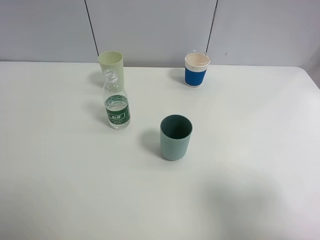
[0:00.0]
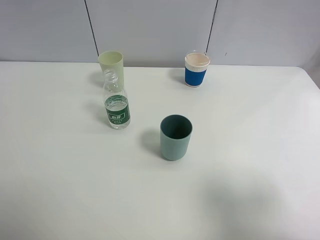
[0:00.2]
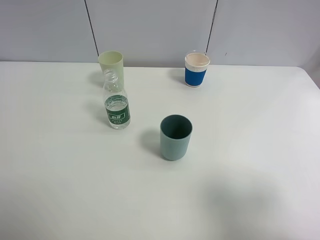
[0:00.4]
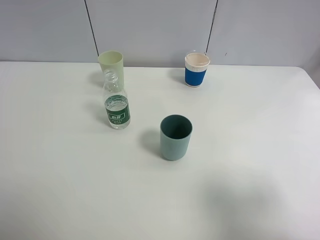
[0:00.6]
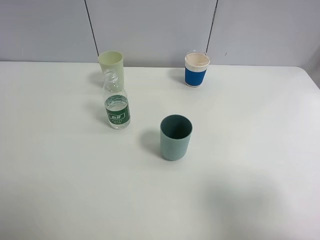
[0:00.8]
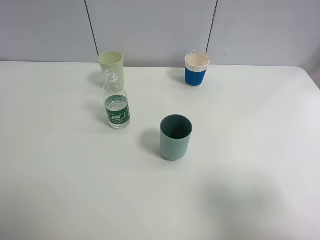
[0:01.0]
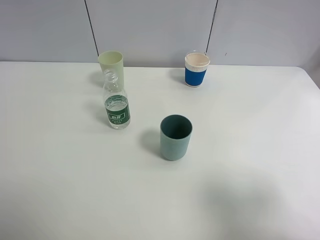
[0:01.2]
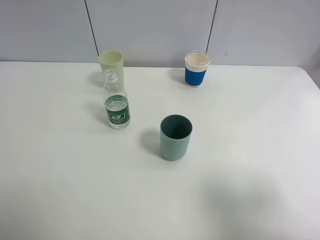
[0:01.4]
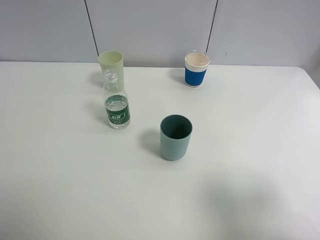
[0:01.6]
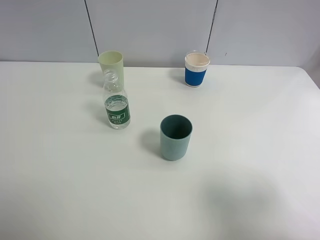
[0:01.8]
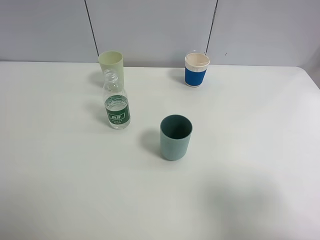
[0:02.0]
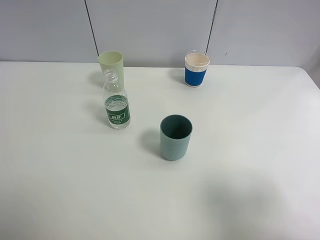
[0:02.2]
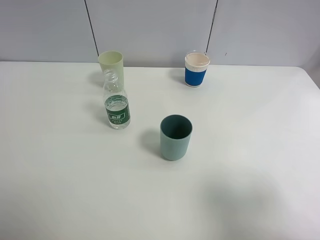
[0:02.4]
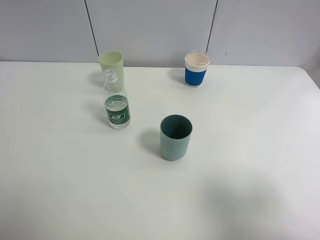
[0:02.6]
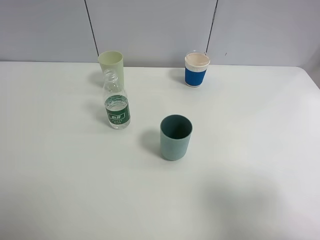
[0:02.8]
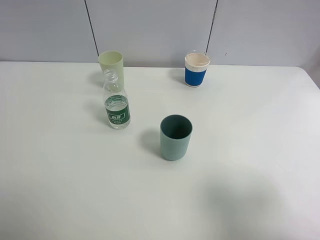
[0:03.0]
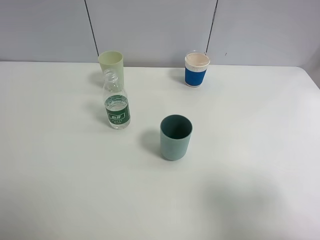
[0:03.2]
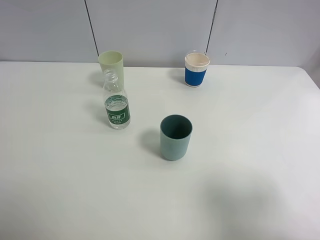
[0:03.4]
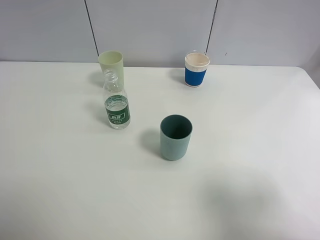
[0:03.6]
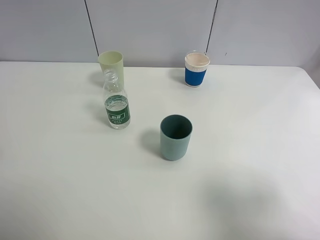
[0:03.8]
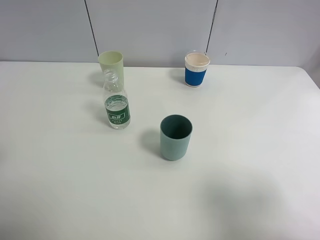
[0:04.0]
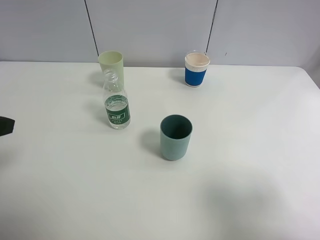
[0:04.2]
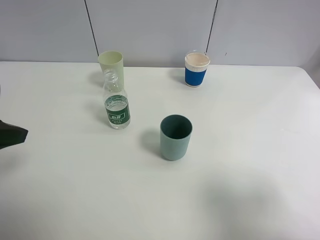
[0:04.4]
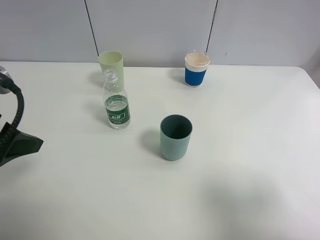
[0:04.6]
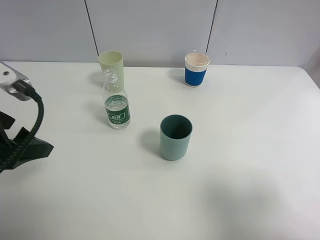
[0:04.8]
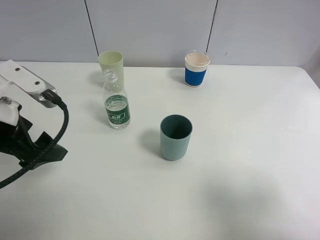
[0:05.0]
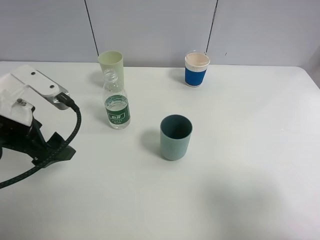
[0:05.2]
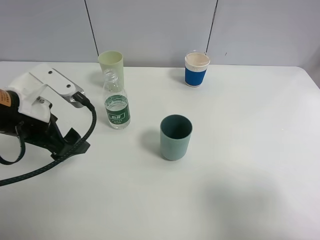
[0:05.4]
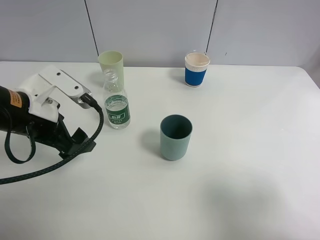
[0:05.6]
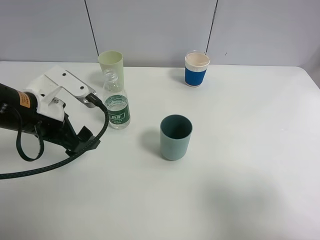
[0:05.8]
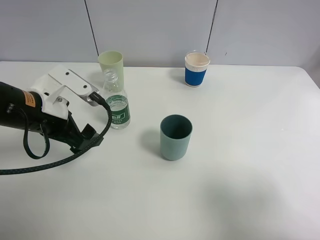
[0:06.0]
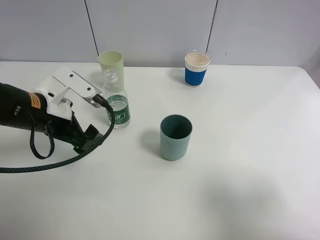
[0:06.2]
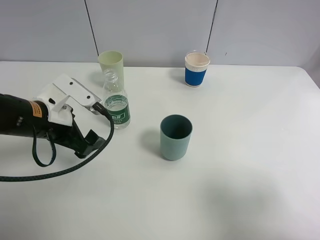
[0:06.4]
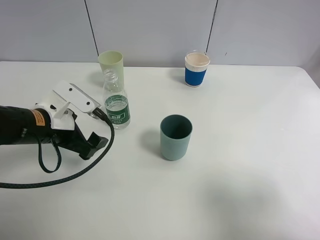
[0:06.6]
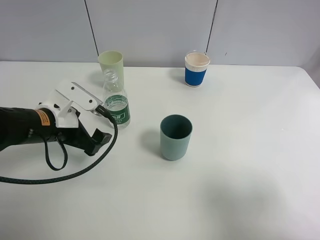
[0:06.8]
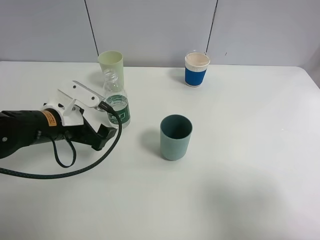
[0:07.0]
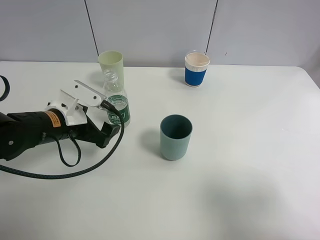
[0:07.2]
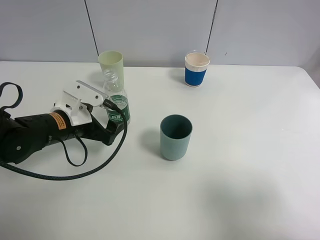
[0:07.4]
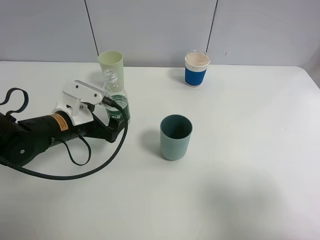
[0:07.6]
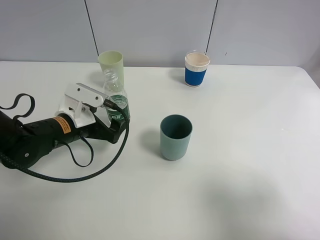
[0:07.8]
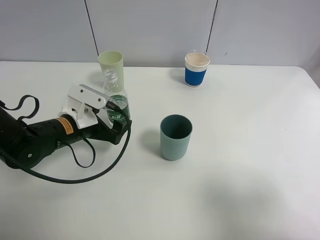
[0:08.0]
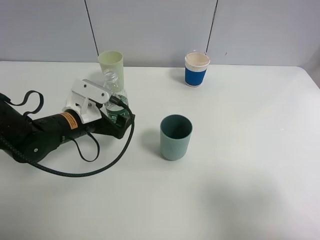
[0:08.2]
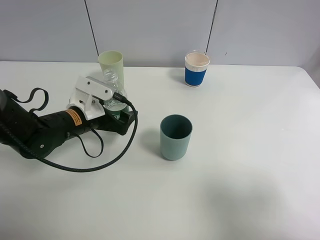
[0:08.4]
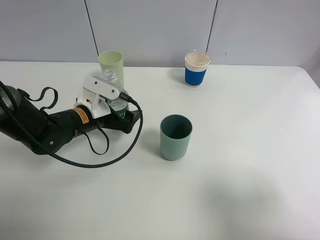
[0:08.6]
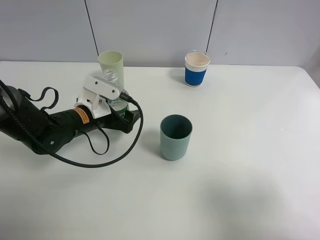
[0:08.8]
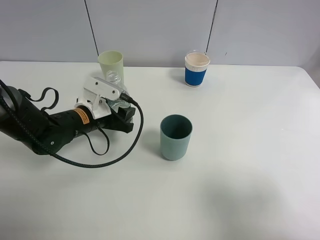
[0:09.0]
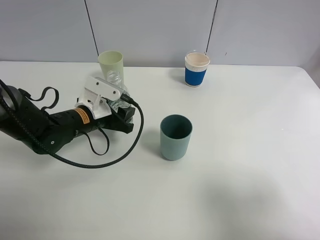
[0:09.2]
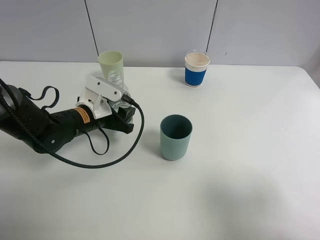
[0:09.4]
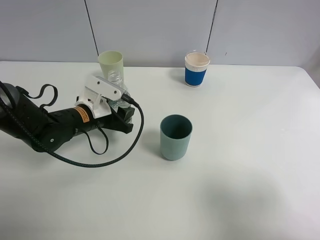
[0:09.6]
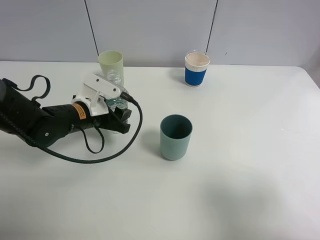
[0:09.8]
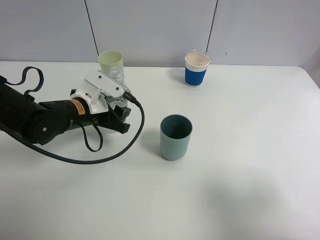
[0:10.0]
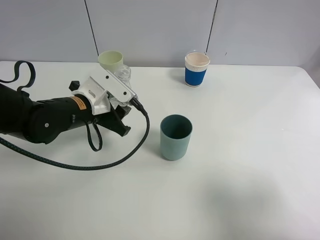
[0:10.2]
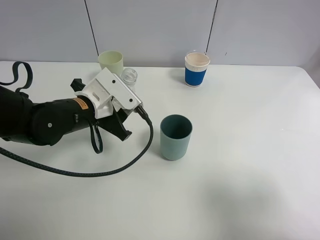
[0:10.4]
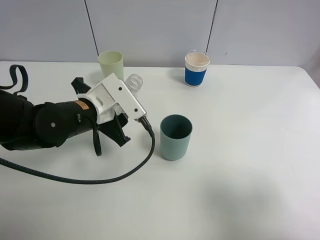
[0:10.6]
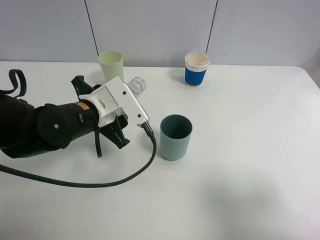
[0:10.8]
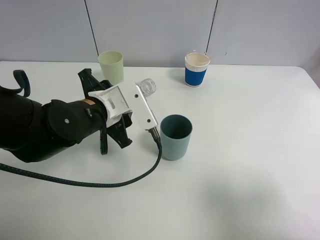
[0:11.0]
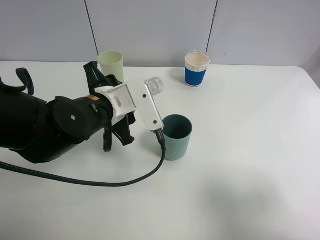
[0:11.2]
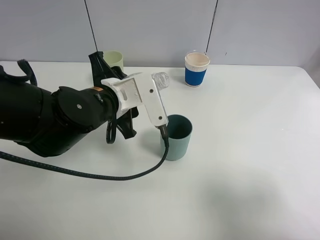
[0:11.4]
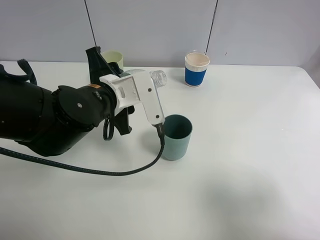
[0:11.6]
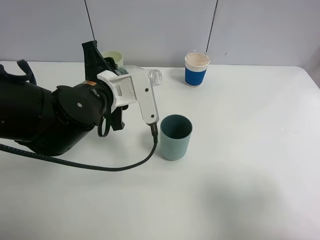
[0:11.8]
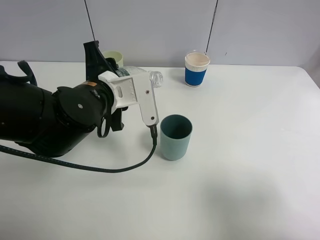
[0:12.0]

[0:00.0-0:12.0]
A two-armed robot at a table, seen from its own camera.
Task of the whole recording: use a clamp to hold the bottle of the drink, pour the beverage into a random cup, then clamp the cup containing the drink and pour the drink into another random cup.
Step, 0:00.0 to 0:10.0: Pick up the water bottle with left gripper.
0:00.0 to 0:03.0: Neither gripper changes place.
0:03.0 to 0:04.4: The left gripper is displaced forward by some 15 cm.
0:04.4 to 0:06.0: The left gripper goes about 15 cm downward, forward and to the right.
0:06.0 to 0:07.6: The left gripper shifts about 5 cm downward.
0:07.6 to 0:09.0: The left gripper closes its fingers.
0:09.0 to 0:10.4: The left gripper moves upward, some 5 cm.
0:10.4 to 0:12.0: The left gripper ends up about 5 cm from where it was.

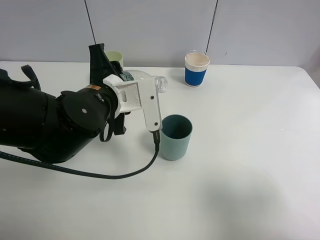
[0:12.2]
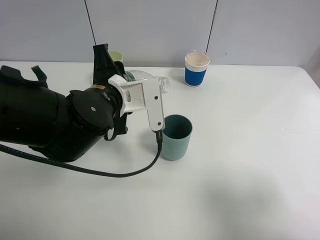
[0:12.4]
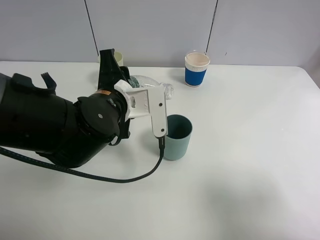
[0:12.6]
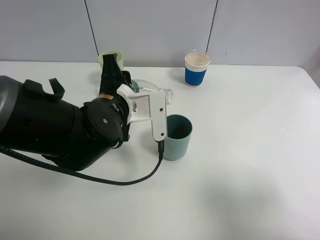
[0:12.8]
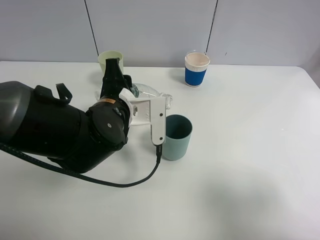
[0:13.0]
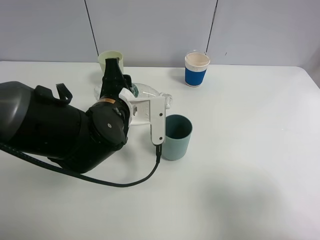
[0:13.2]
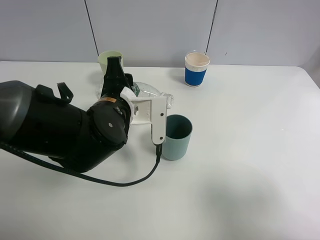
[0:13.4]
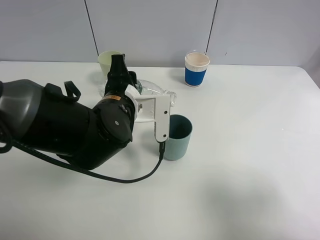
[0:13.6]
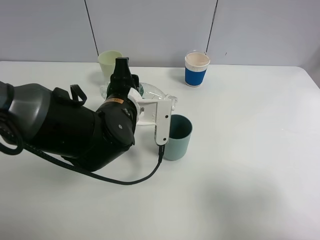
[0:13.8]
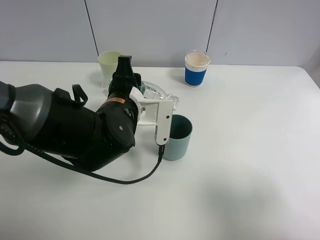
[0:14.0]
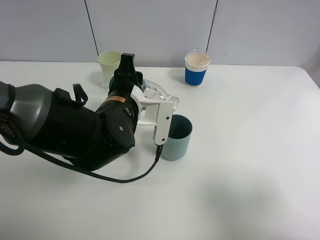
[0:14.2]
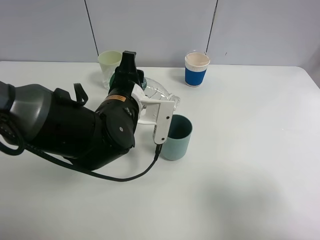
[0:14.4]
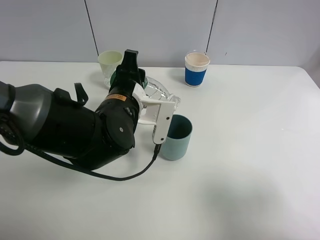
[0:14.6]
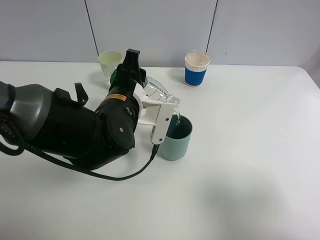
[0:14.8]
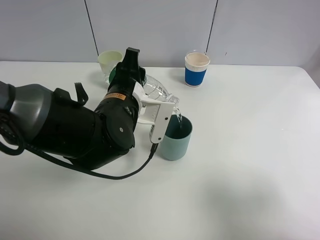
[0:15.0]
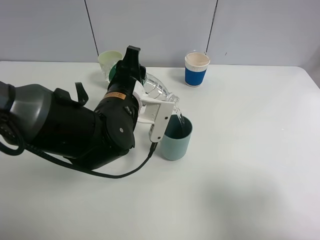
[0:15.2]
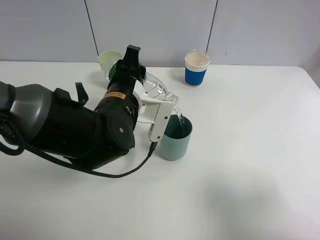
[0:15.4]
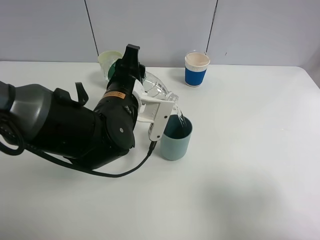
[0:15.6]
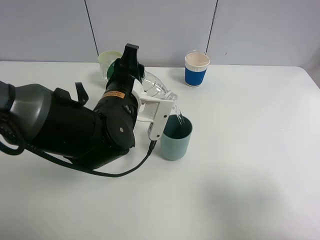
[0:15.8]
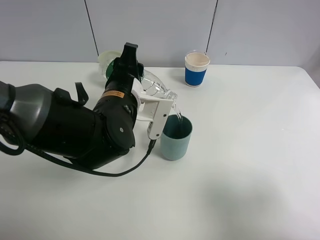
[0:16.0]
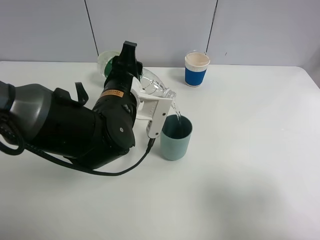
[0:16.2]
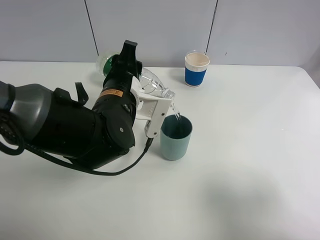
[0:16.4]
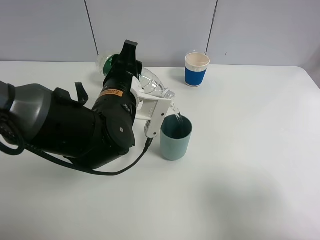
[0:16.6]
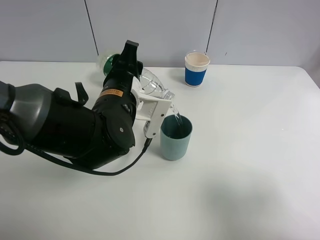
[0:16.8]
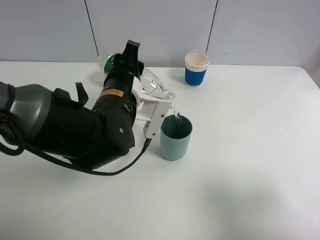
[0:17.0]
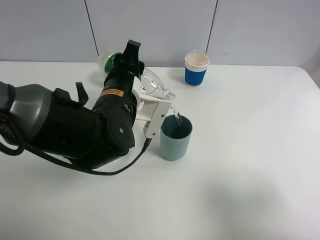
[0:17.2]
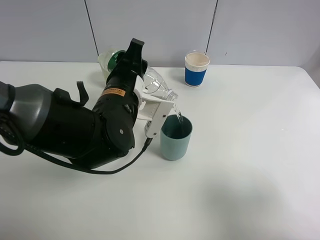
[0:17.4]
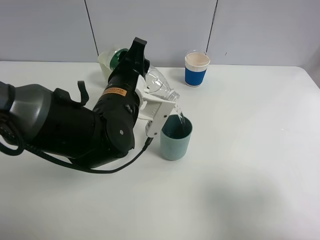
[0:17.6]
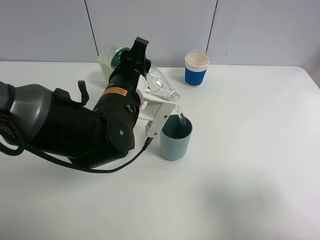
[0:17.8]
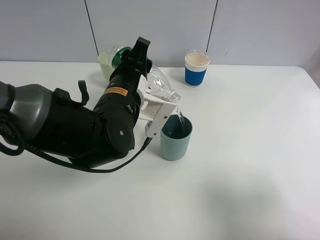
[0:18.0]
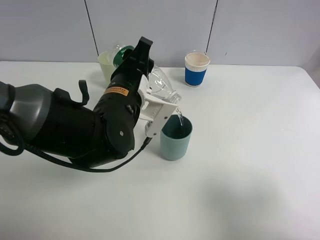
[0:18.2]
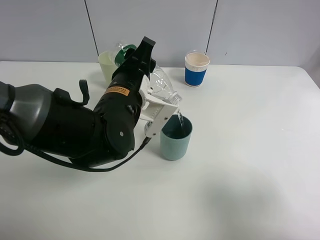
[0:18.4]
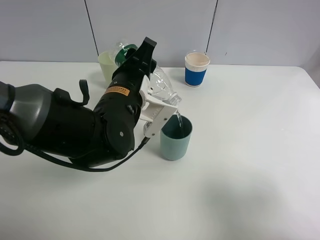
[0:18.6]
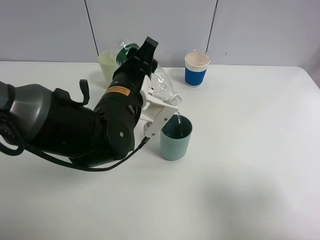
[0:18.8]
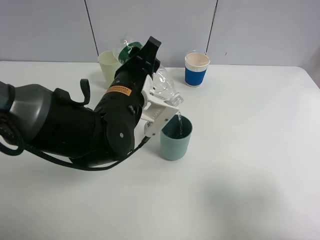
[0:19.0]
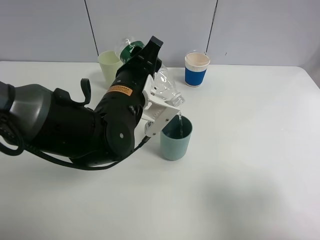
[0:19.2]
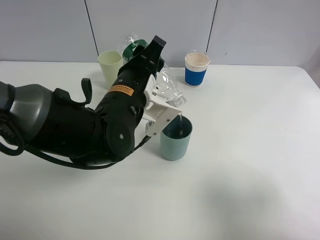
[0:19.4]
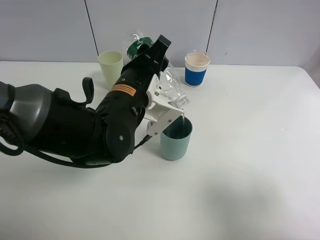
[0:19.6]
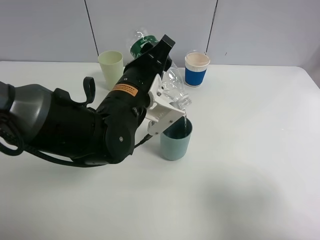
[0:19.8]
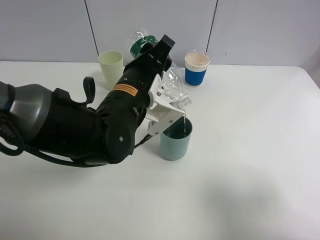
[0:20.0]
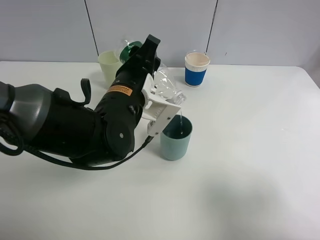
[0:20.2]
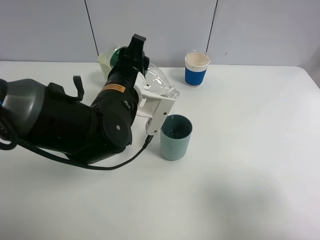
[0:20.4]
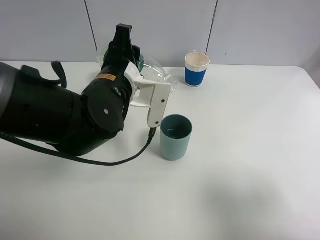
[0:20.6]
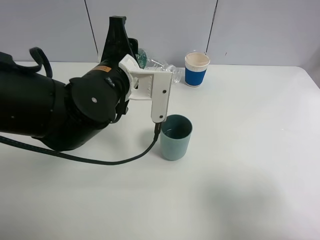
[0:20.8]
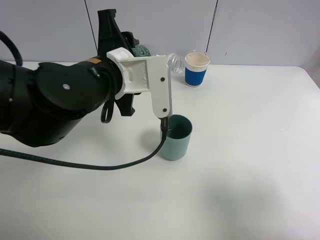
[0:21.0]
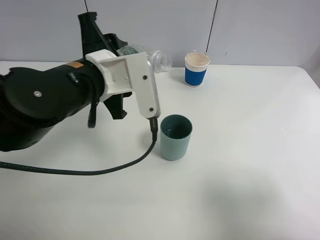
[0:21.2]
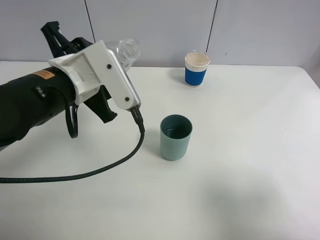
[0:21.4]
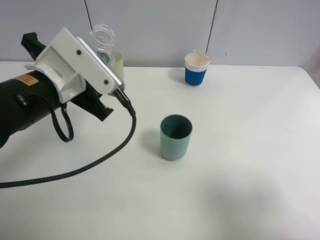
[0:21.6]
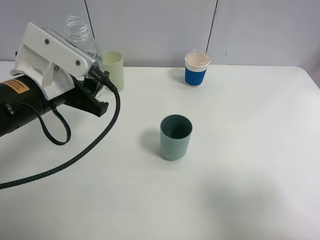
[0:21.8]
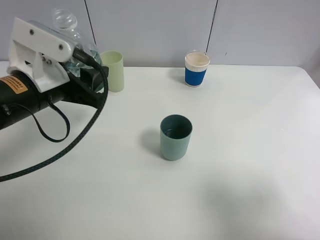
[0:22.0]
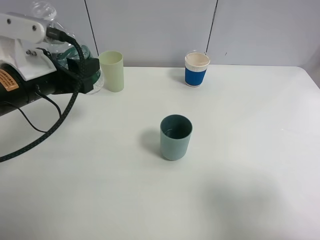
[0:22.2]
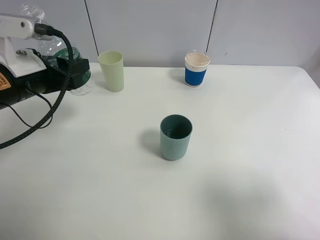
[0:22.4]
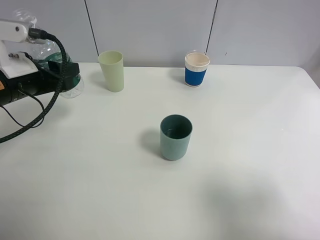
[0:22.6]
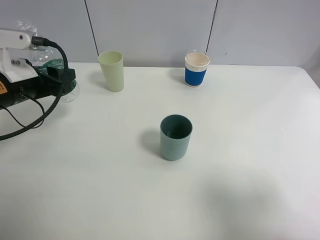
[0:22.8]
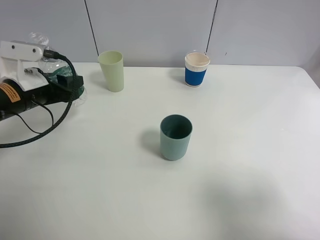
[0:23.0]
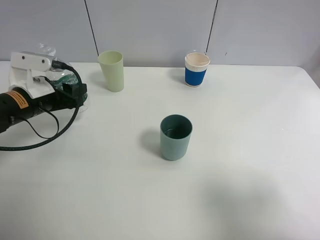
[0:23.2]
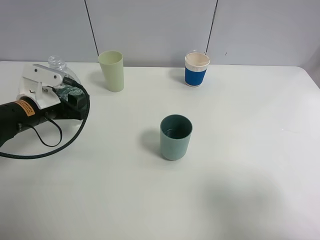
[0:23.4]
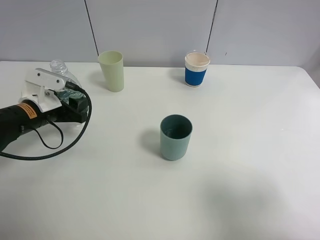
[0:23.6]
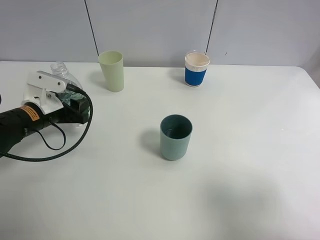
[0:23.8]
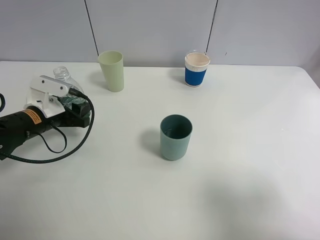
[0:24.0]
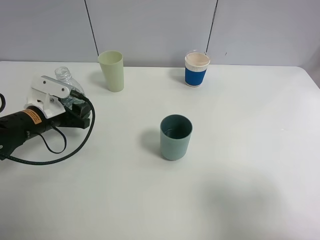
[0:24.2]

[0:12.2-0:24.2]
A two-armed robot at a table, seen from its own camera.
Task of the whole recording: use a clamp to hold the bottle of the drink, pour the beverage into a random cup, then clamp the cup containing the drink and pour the drink into another random cup.
Step, 0:12.2 to 0:20.4: Pour the water into the blue plastic cup with left gripper.
0:12.2 to 0:13.8: The grippers move only a little.
0:13.8 to 0:16.6: There are only small adjustments of the grippers.
0:16.6 to 0:18.2: The grippers move only a little.
0:18.2 to 0:19.8: The grippers make only small movements.
0:19.8 to 0:21.2: The left gripper goes approximately 5 cm to the left.
0:21.2 to 0:22.6: The left gripper is displaced to the left by approximately 15 cm.
0:22.6 to 0:24.2: The left gripper goes some 10 cm downward.
